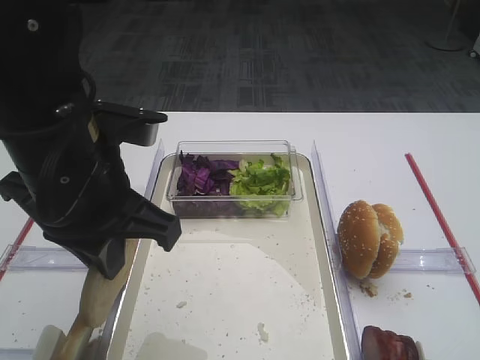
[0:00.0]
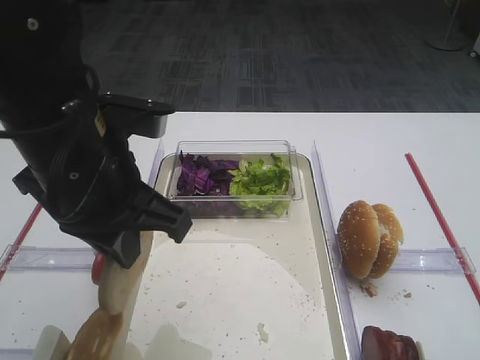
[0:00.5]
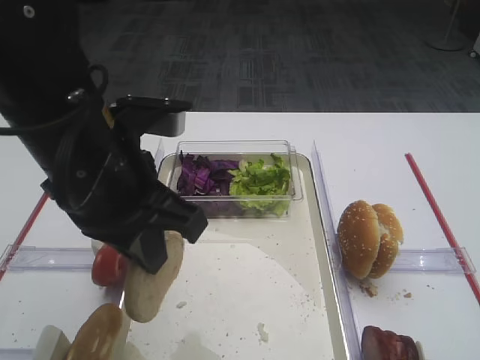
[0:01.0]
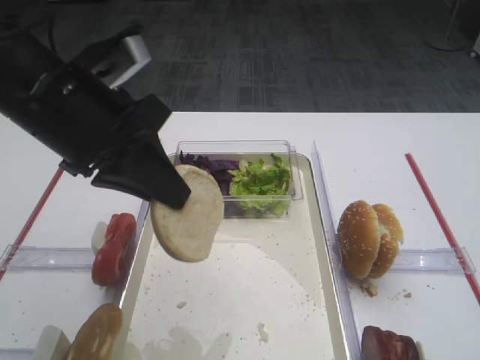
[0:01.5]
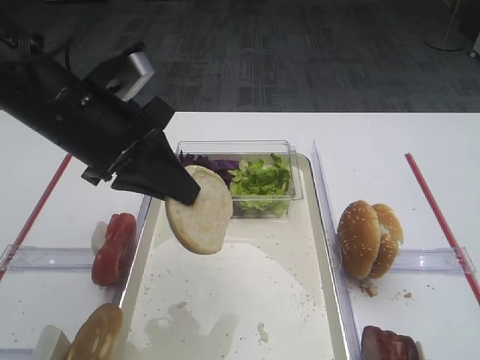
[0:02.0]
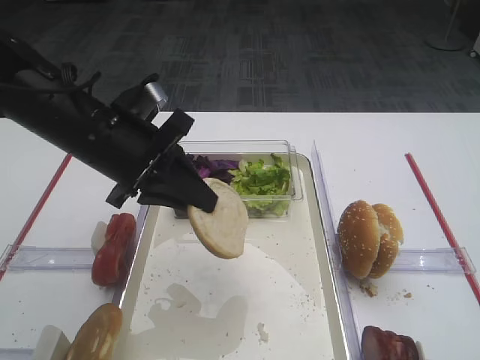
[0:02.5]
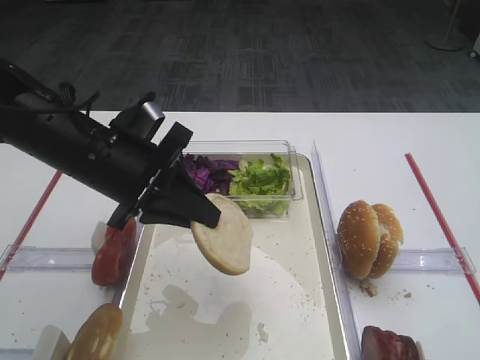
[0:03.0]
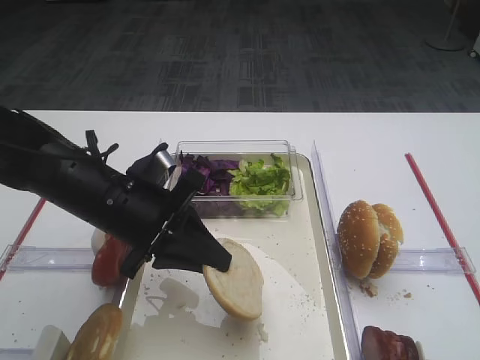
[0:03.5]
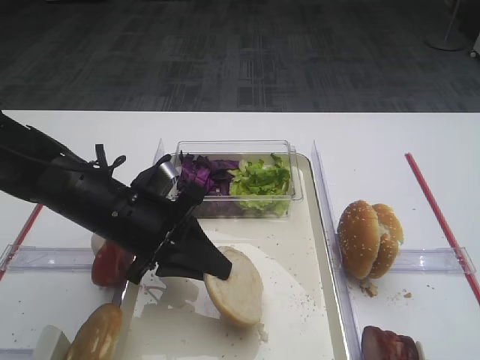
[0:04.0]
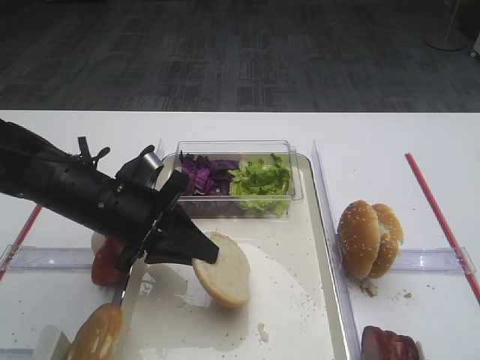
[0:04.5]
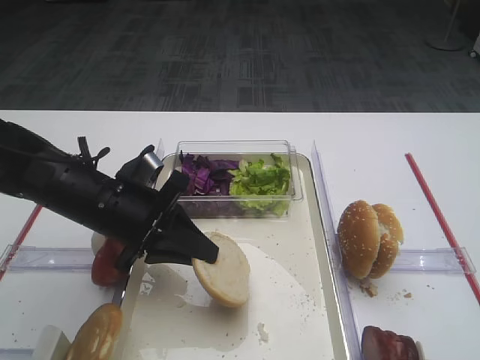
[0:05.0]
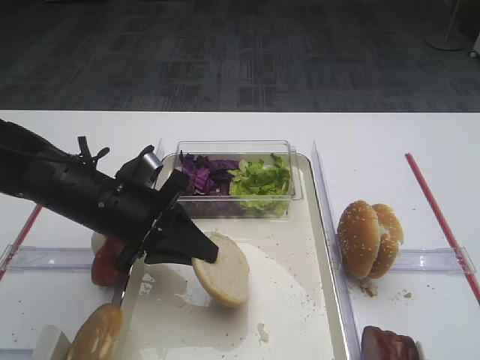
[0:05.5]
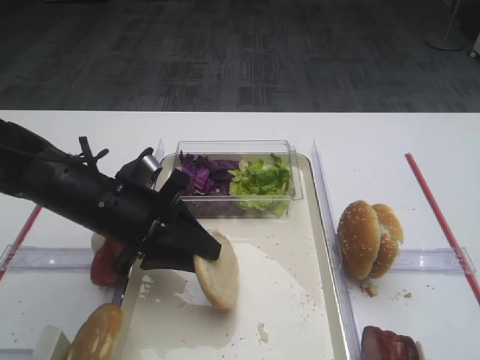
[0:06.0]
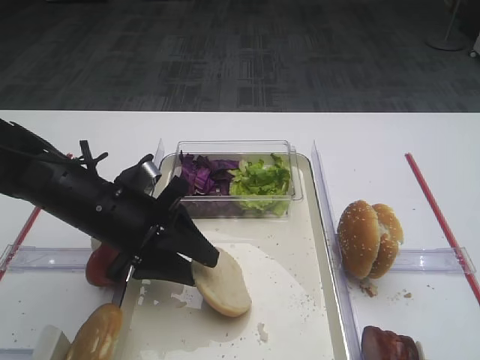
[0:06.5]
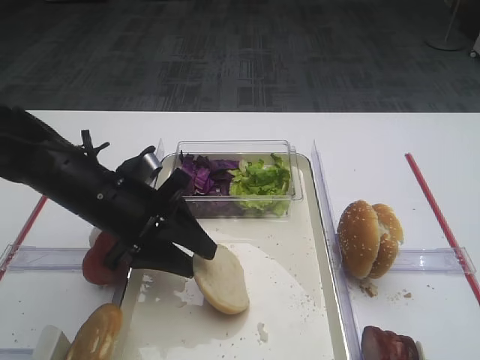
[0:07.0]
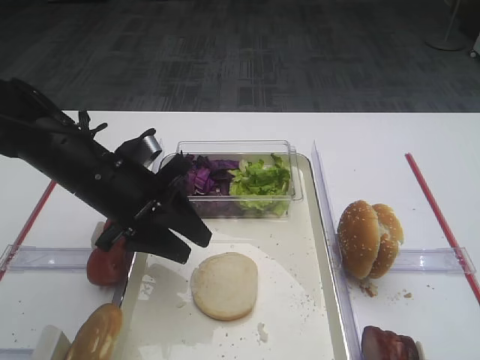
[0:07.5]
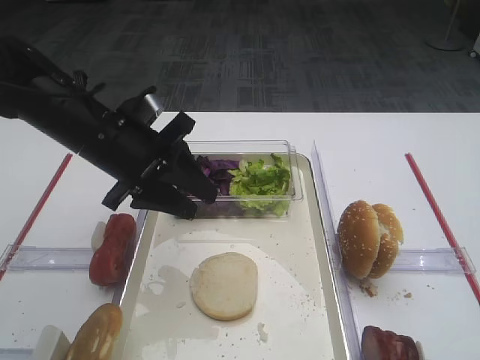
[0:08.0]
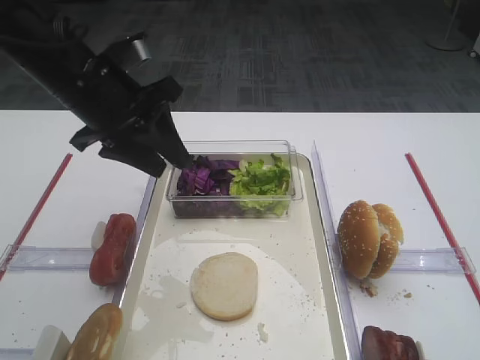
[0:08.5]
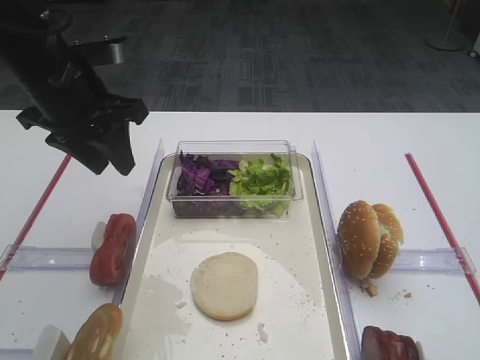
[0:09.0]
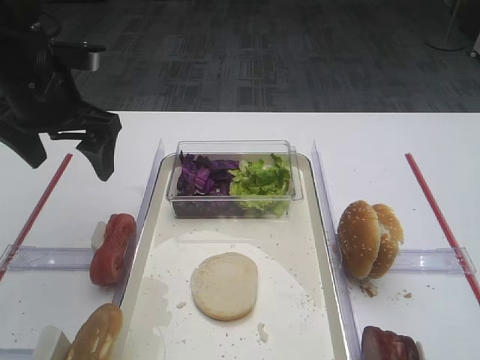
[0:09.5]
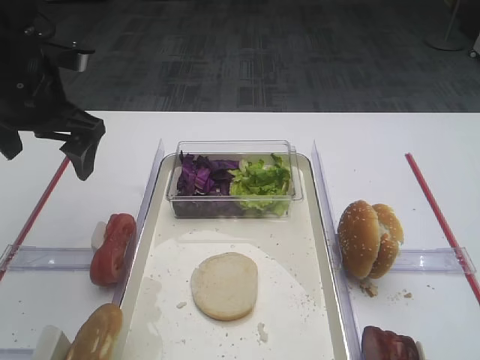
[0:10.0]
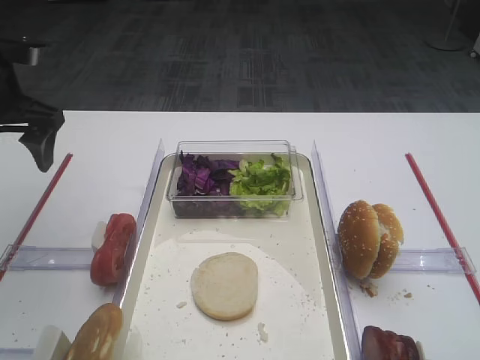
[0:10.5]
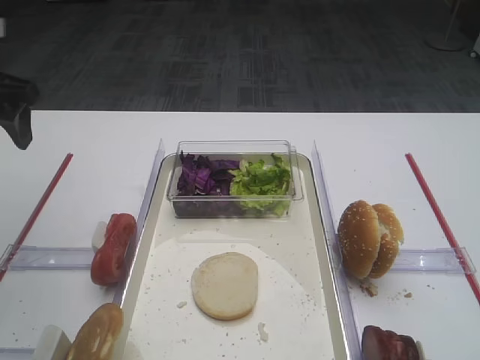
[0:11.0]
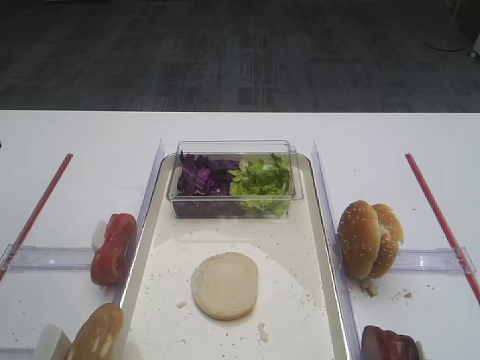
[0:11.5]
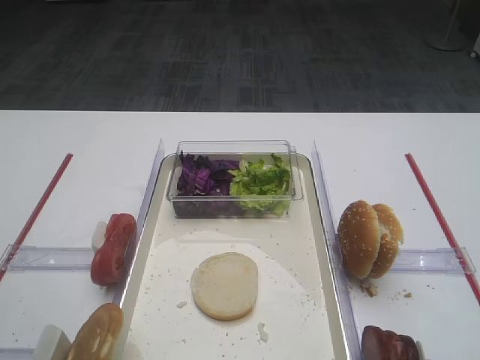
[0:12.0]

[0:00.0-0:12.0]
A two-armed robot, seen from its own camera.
Step, 0:00.5 to 0:08.0: Place the bread slice on the tray with the left gripper.
0:00.0 to 0:02.0: The left gripper shifts approximately 5 cm forward.
0:02.0 to 0:04.0: The left gripper heads downward, covering about 10 cm.
0:04.0 to 0:06.0: The grippers move only a little.
0:06.0 to 0:08.0: The left gripper moves upward, some 5 cm.
0:08.0 to 0:10.0: The left gripper goes roughly 10 cm to the left and upward, and opens its fingers.
0:10.0 to 0:12.0: The left gripper shifts some 20 cm backward.

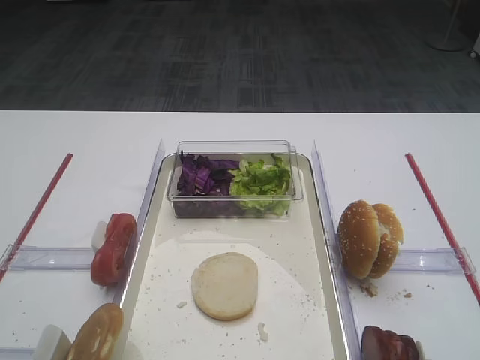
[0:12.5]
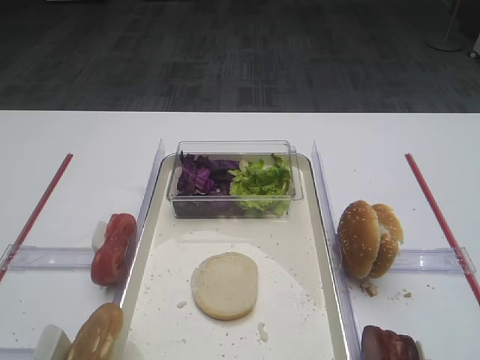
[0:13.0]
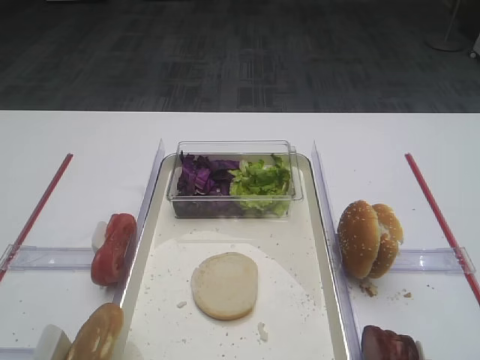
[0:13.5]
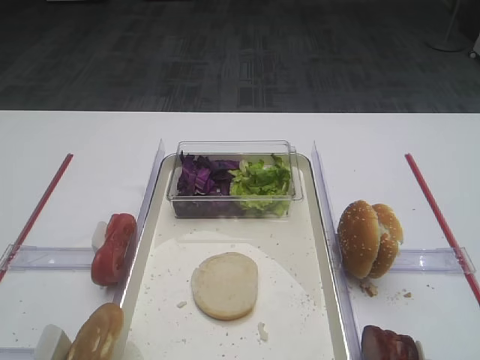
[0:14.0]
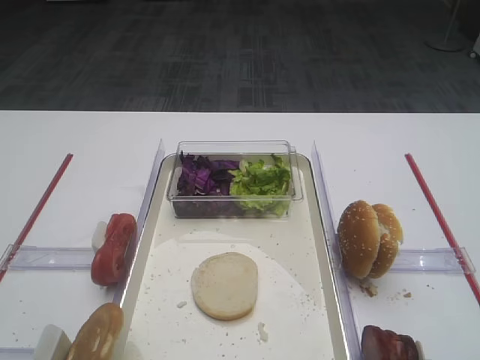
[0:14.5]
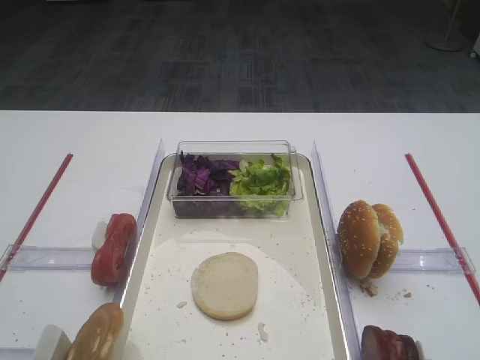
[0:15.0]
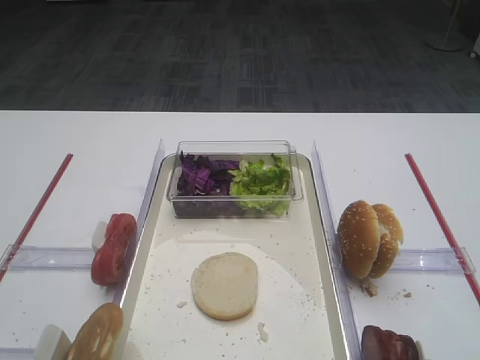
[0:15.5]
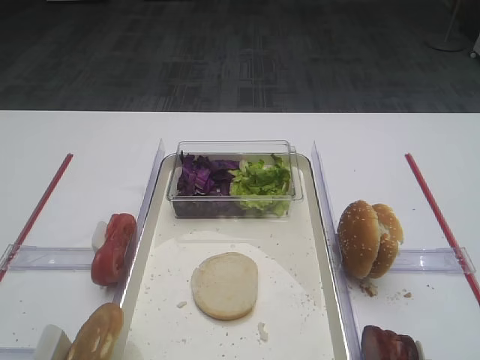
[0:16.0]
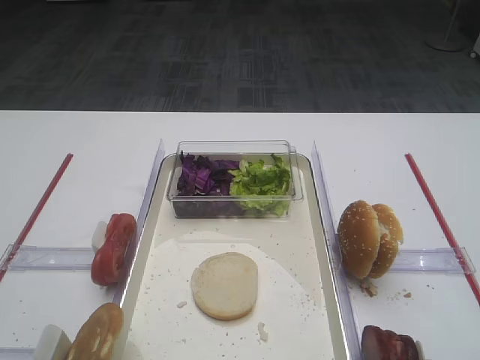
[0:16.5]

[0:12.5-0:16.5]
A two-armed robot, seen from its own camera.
0:14.5 to 0:16.5: Neither gripper changes place.

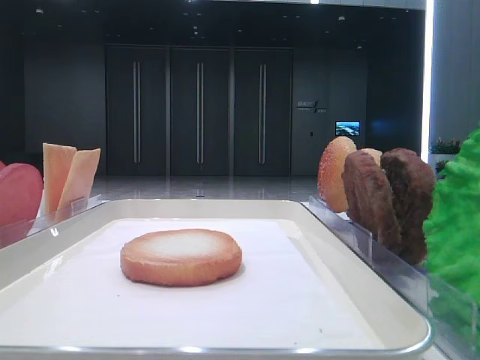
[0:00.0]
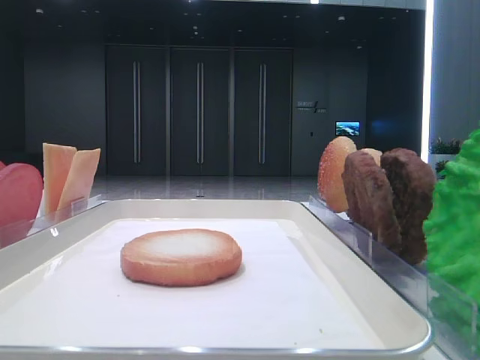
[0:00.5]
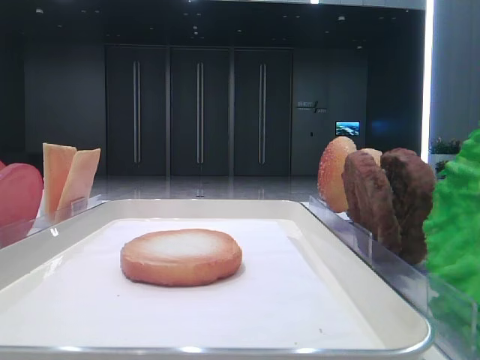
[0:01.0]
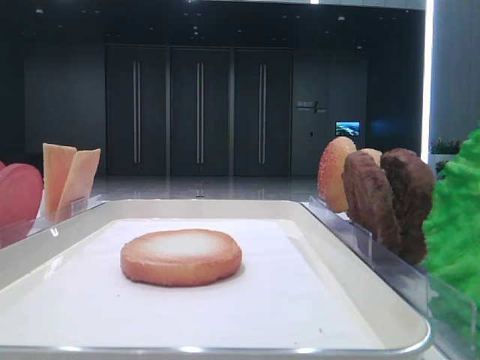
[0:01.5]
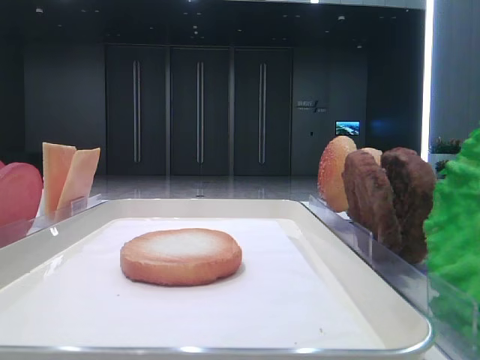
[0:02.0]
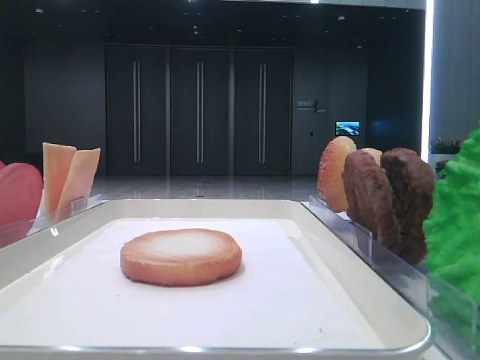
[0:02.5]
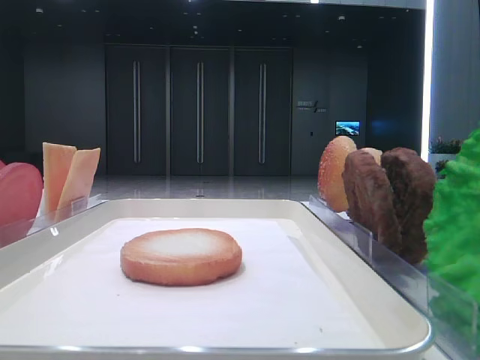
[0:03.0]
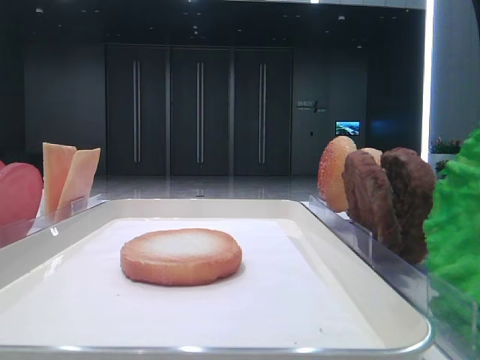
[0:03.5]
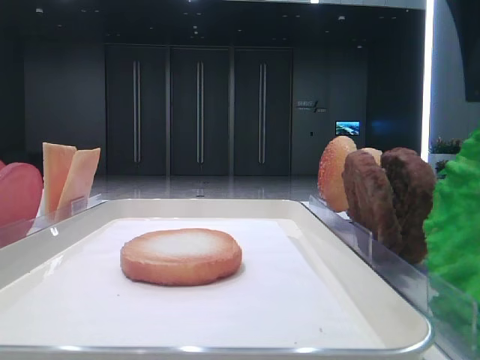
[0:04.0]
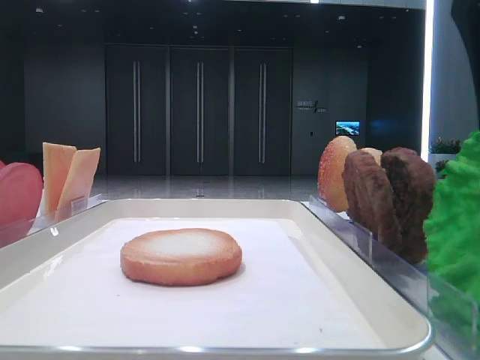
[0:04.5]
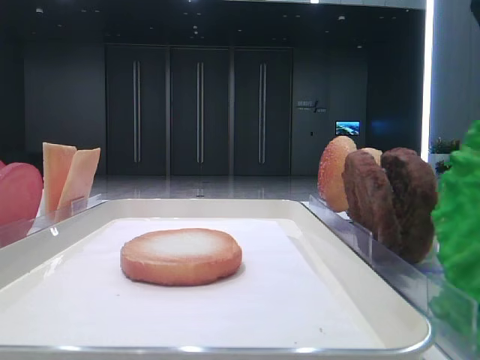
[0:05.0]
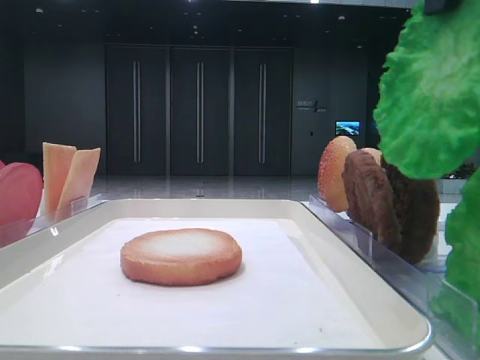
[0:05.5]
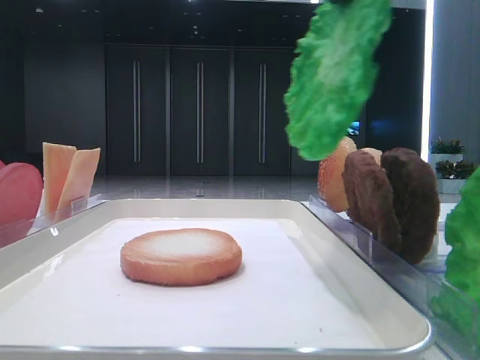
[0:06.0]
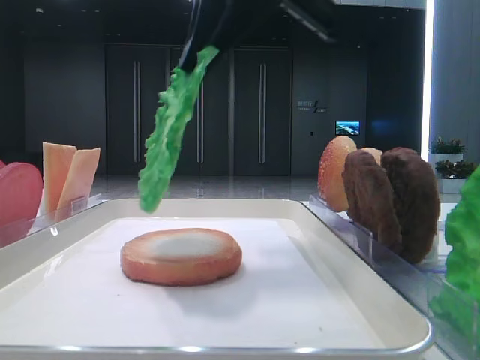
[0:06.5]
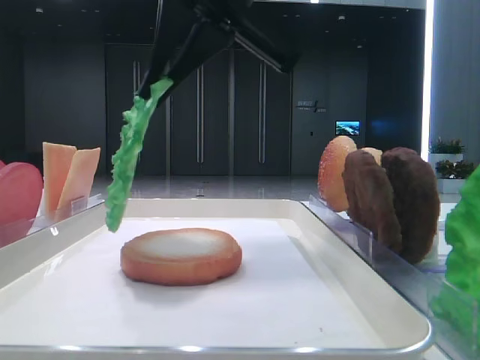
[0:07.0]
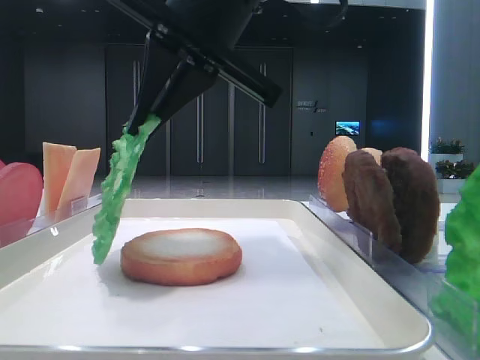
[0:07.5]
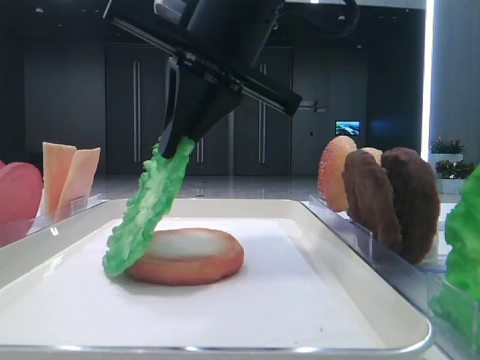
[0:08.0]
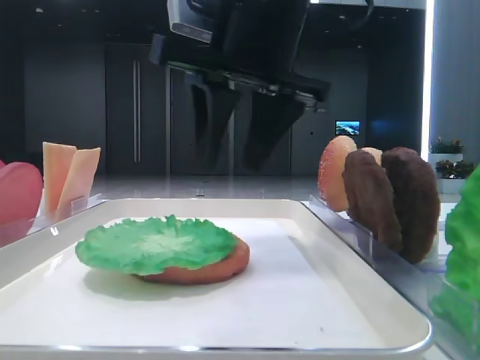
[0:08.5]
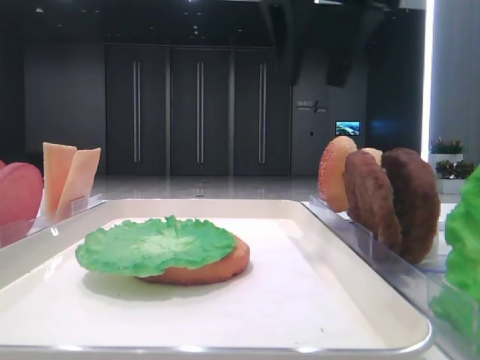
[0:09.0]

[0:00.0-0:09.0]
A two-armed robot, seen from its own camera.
Step, 0:00.0 to 0:04.5: Grab the lettuce leaf with the right hand.
Step, 0:05.0 to 0:08.0: Place the lettuce leaf on the bottom bread with the right hand.
0:02.0 to 0:04.5: The right gripper shifts approximately 15 cm to the left.
0:04.5 to 0:07.0: The right gripper shifts some 20 cm to the left and forward, and closes.
0:07.0 to 0:09.0: The right gripper goes approximately 10 cm to the right and forward, and opens its fingers.

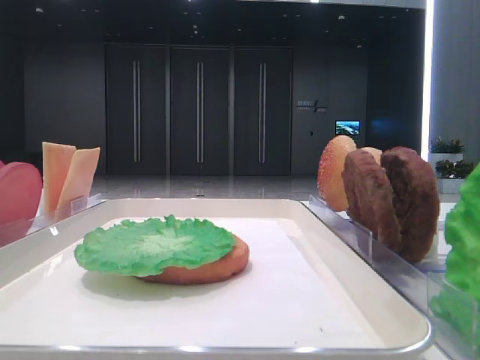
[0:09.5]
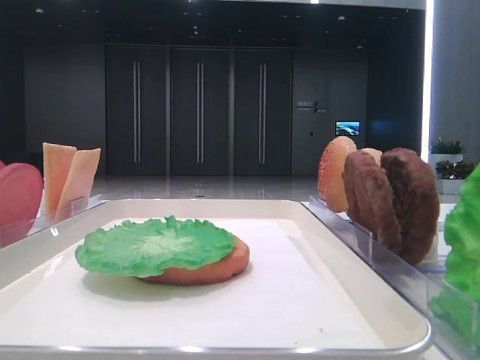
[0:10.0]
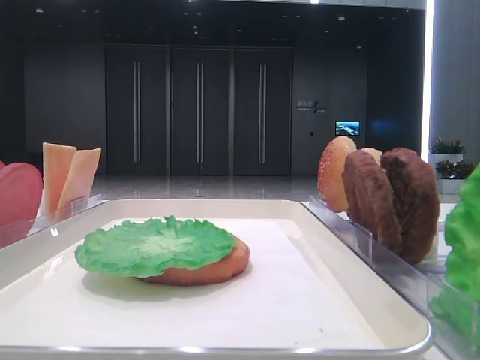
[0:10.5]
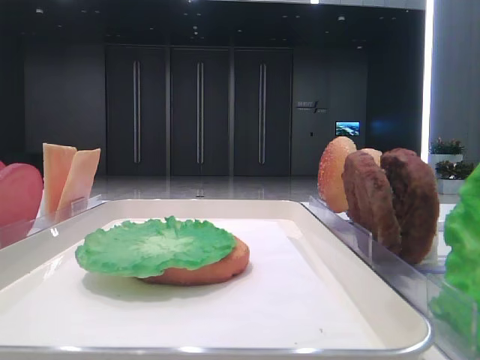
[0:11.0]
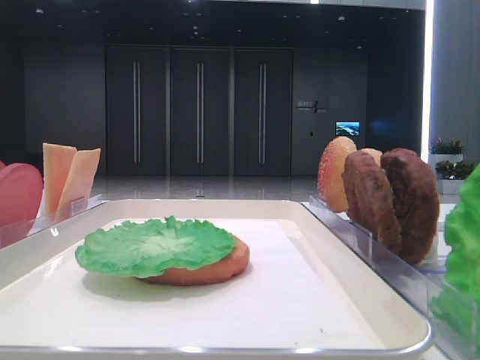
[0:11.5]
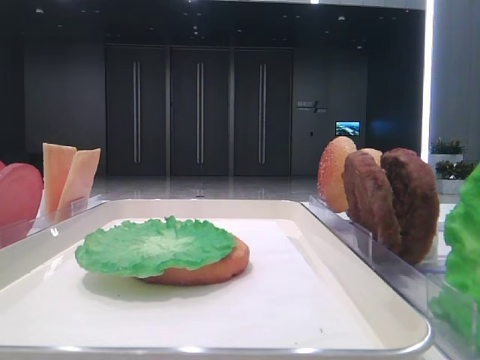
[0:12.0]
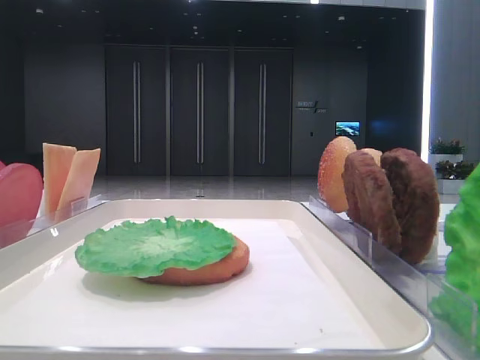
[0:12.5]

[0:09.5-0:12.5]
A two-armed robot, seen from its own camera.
0:09.5 to 0:11.0: The right gripper travels backward by about 35 cm.
0:11.0 to 0:12.5: Both grippers stay about where they are.
